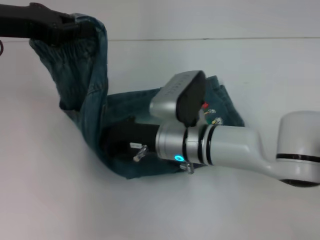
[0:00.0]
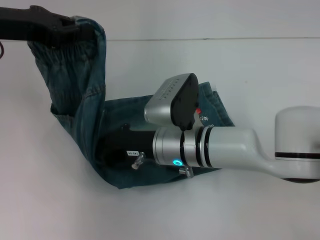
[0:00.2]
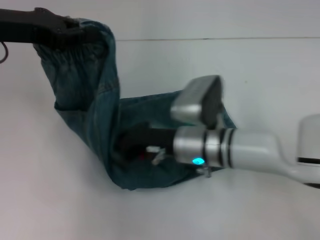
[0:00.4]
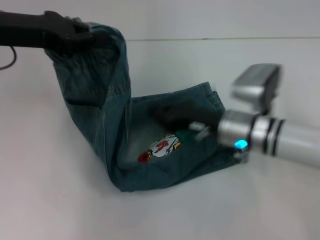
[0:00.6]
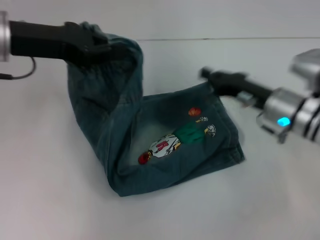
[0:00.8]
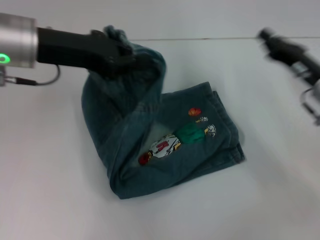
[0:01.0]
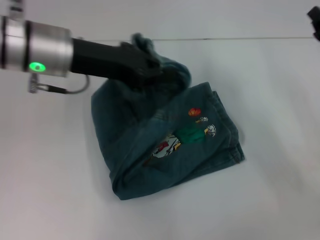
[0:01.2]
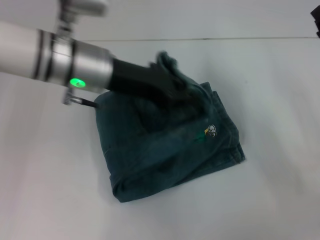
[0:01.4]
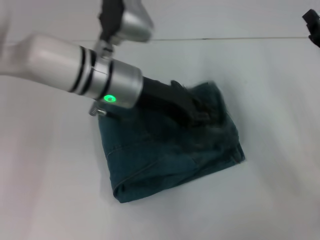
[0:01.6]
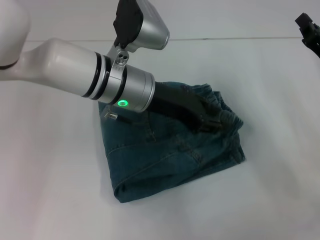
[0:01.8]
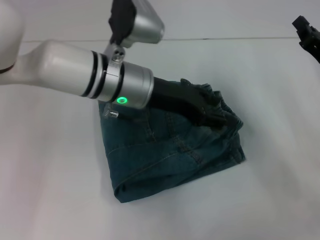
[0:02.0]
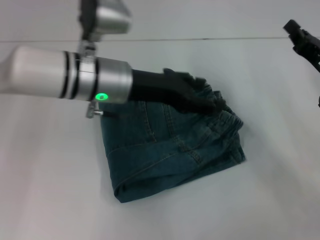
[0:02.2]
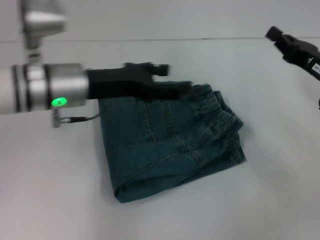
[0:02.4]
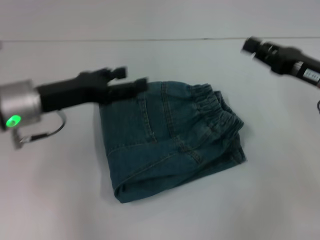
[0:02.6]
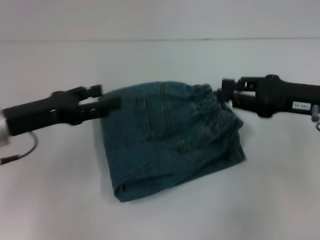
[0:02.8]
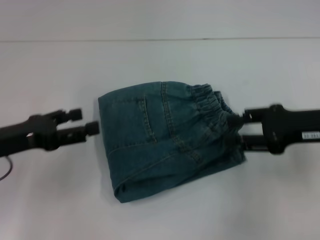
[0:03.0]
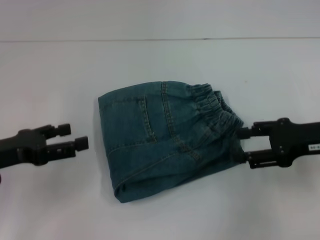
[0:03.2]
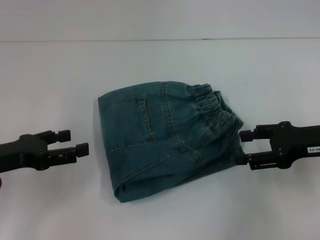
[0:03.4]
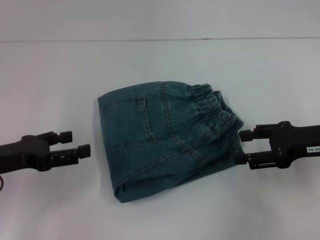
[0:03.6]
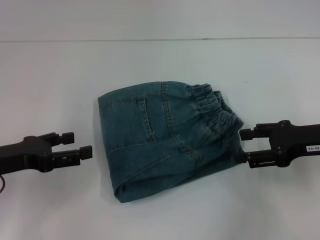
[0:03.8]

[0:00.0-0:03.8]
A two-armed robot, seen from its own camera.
Step, 0:00.2 to 0:01.8: Fold to the right with your left hand.
0:00.0 to 0:01.2: The right gripper goes about 25 cm to the right, while the left gripper moves to the right, approximately 10 cm.
0:01.2 to 0:02.6: The left gripper travels downward by some 10 cm, travels to the right and back again, roughly 10 cm each way, and opens.
0:02.6 to 0:03.8: The right gripper opens; the left gripper shifts some 10 cm to the left and backward.

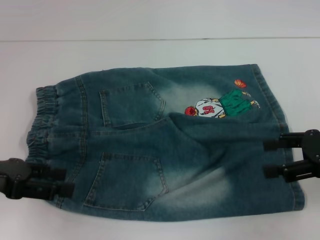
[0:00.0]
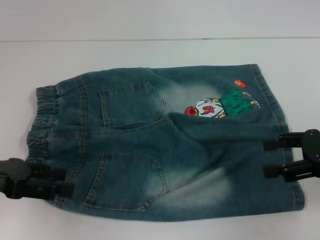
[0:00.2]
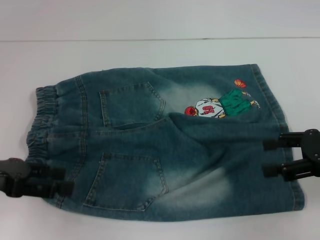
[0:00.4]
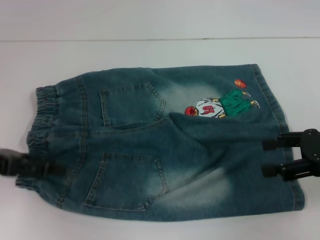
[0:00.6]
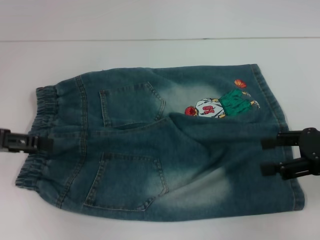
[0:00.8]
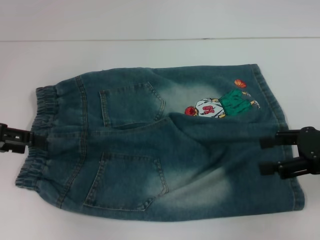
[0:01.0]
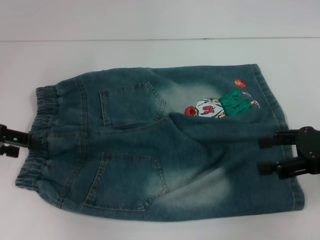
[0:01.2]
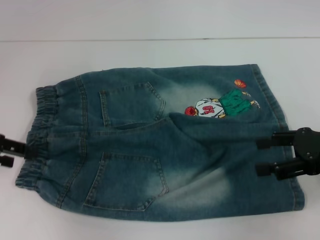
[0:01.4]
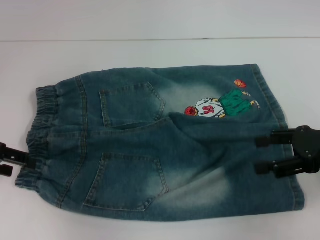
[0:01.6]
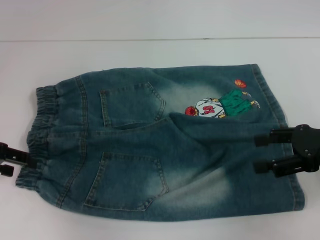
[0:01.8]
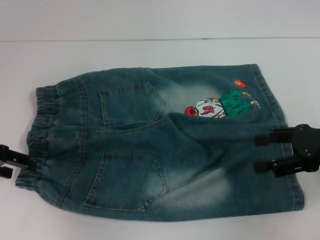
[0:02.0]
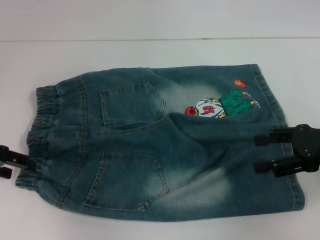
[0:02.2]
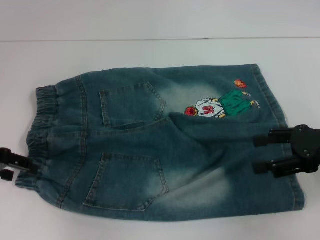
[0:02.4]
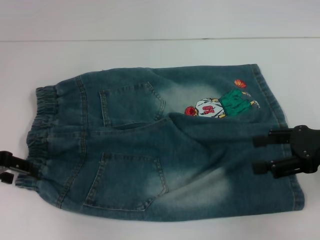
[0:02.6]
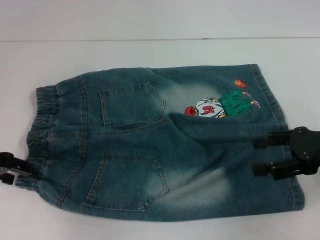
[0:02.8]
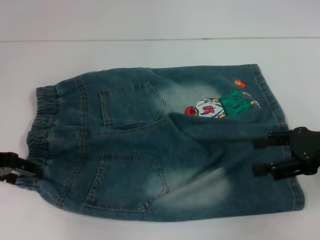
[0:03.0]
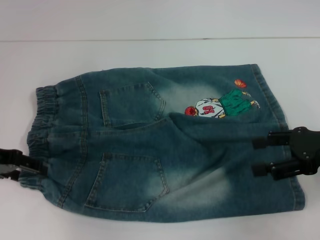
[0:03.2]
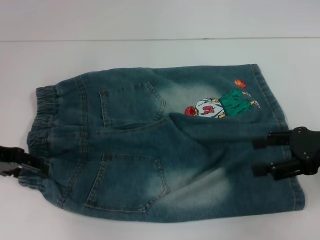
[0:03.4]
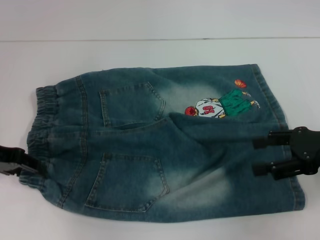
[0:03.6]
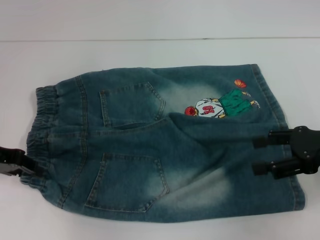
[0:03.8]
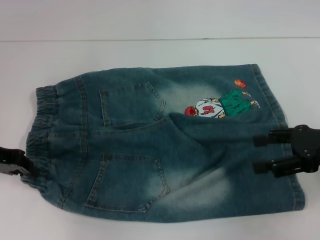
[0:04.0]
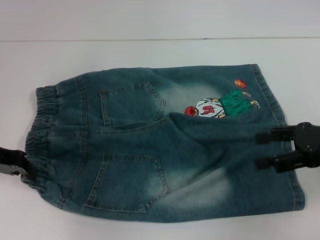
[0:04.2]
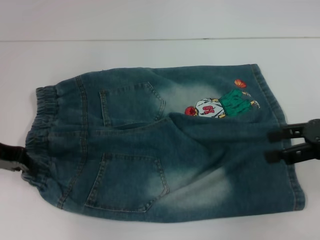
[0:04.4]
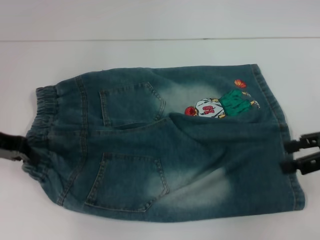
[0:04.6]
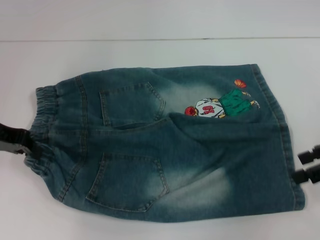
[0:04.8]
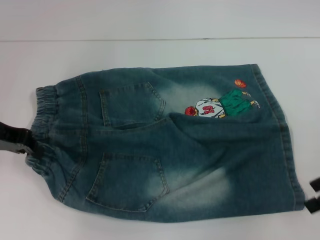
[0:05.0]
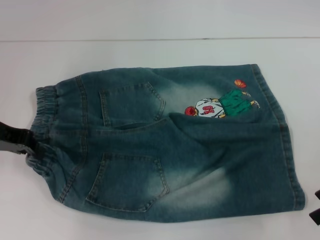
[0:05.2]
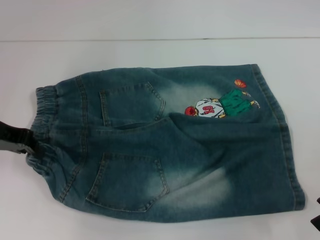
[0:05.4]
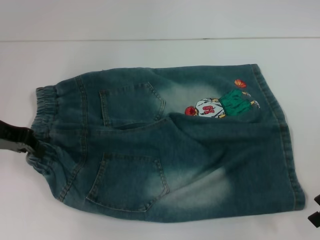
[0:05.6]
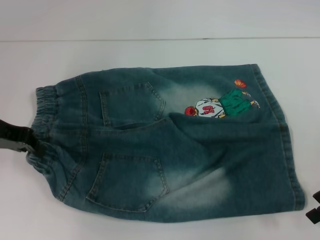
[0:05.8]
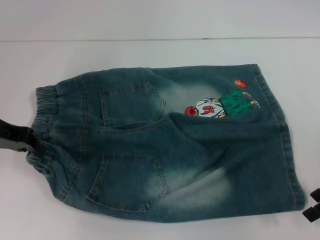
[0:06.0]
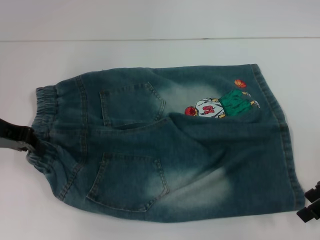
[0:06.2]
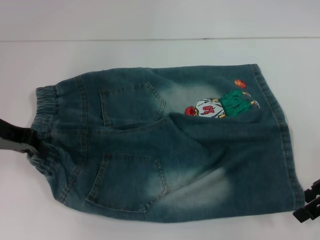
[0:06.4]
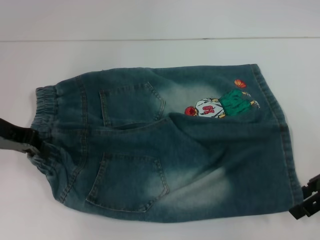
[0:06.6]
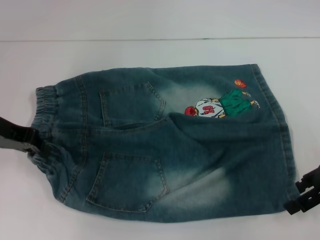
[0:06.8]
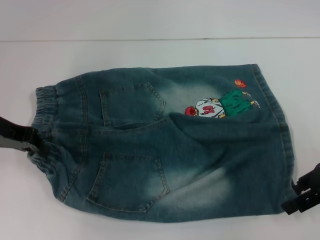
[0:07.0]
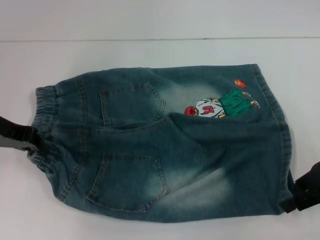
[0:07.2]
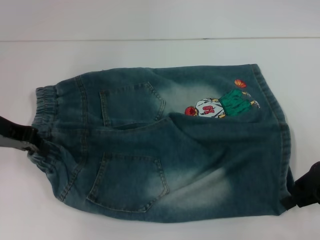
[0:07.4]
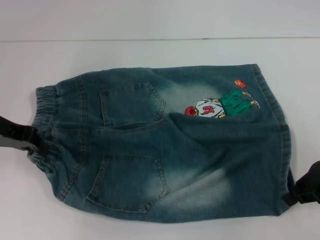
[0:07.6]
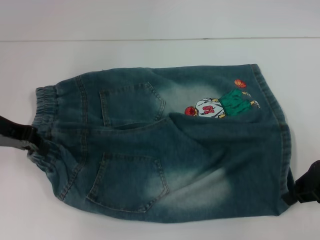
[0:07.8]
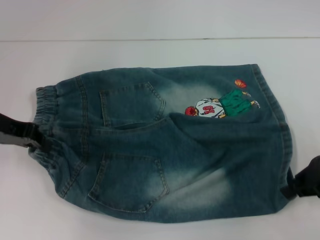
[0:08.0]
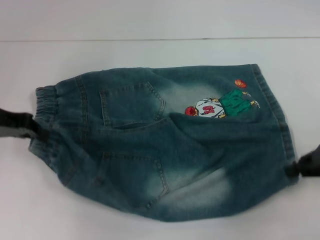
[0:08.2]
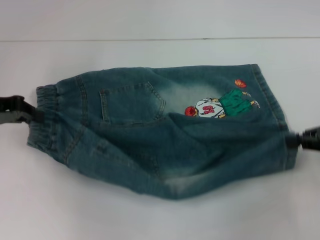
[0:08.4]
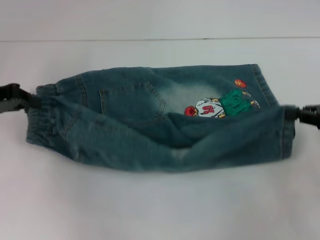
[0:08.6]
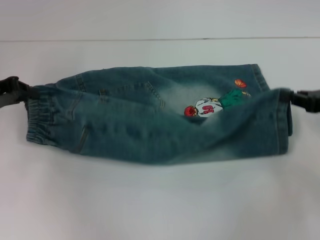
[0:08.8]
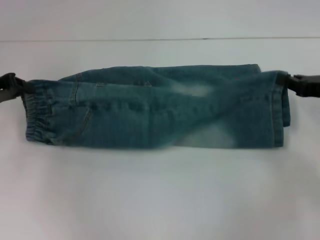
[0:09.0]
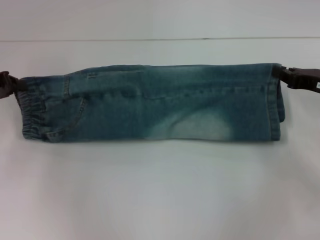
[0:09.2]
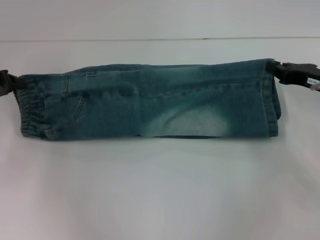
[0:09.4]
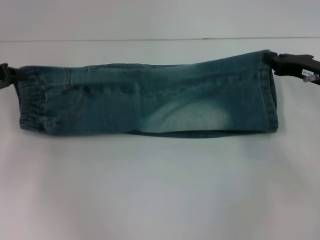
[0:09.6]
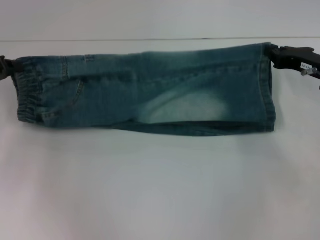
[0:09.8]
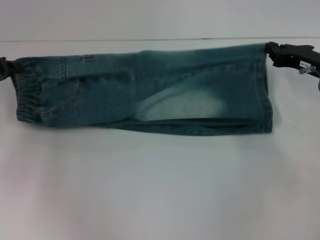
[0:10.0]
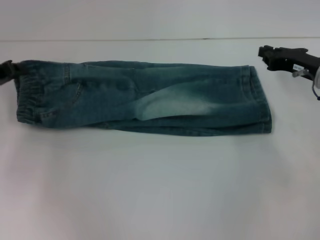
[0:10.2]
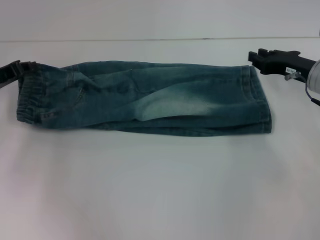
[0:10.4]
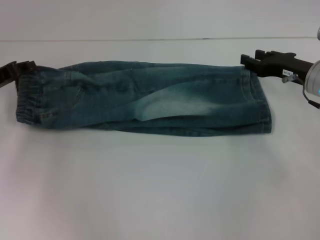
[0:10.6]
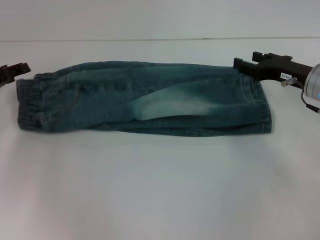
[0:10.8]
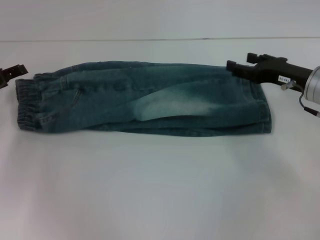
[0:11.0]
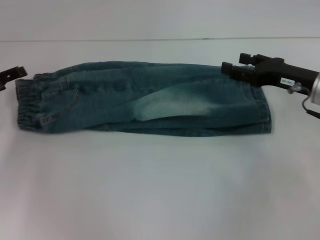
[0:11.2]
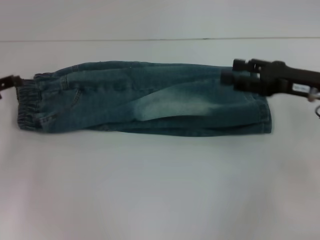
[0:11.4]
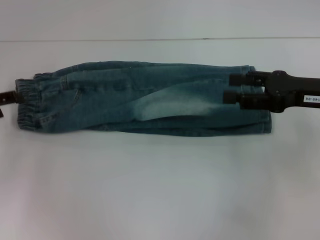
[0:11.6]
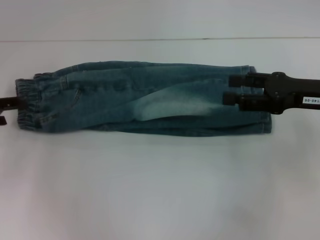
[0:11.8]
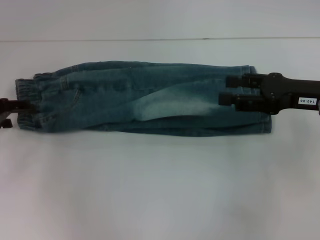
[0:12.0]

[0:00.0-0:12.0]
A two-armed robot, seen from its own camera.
Step, 0:00.0 to 0:04.4: Hold the lower left waistband with your left hand.
Step, 0:04.6 to 0:07.8: Grab the lower right pant leg with your right hand.
Step, 0:08.0 to 0:10.0: Fold upward with your right hand.
Step, 0:10.2 to 0:10.6: Fold upward with your left hand.
0:00.0 to 0:01.6: The left gripper shifts roughly 5 cm forward.
0:01.6 to 0:03.0: The grippers stay close to where they were, moving slightly.
0:03.0 to 0:04.4: The left gripper closes its fingers.
0:06.0 to 0:07.6: The right gripper closes.
0:07.6 to 0:09.0: The left gripper moves some 5 cm, while the right gripper ends up roughly 5 cm from where it was.
0:09.0 to 0:10.4: The right gripper is displaced to the left and forward by some 10 cm.
0:10.4 to 0:12.0: The left gripper opens up; the right gripper is displaced backward and upward by roughly 10 cm, and opens up.

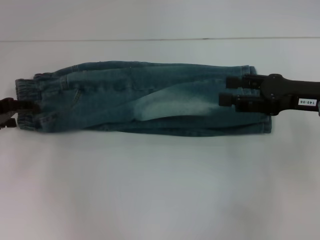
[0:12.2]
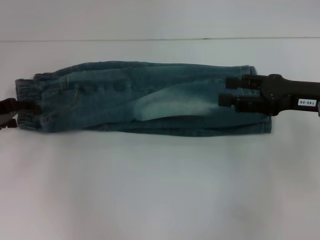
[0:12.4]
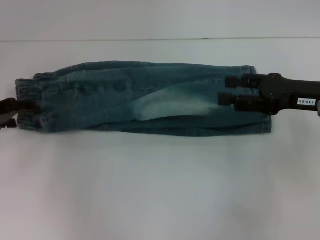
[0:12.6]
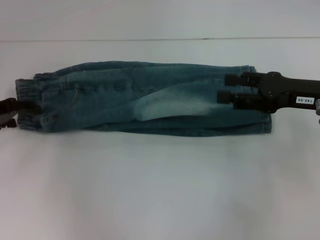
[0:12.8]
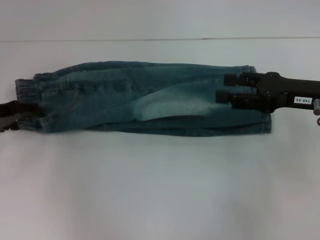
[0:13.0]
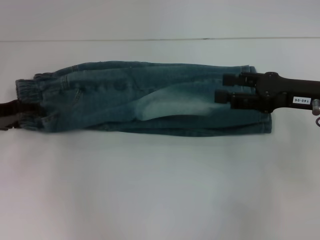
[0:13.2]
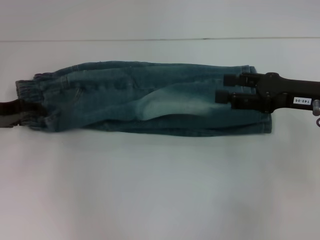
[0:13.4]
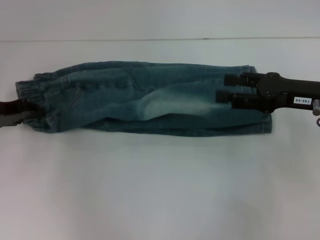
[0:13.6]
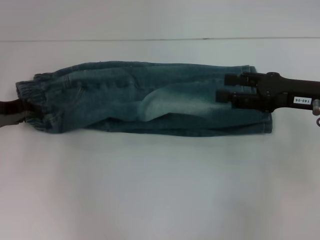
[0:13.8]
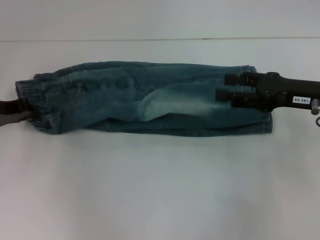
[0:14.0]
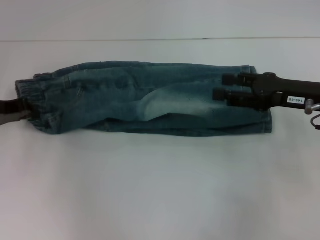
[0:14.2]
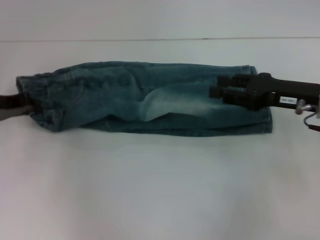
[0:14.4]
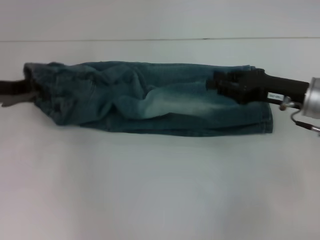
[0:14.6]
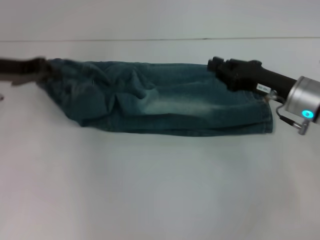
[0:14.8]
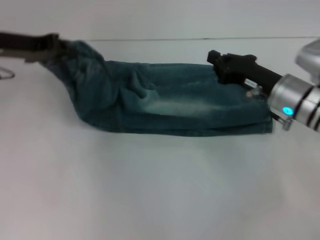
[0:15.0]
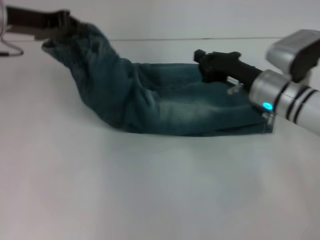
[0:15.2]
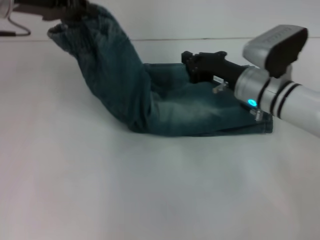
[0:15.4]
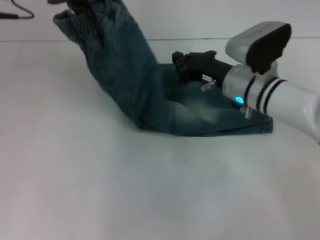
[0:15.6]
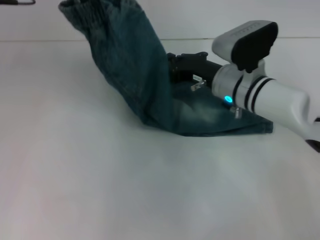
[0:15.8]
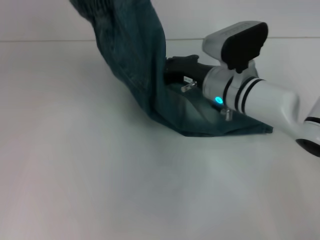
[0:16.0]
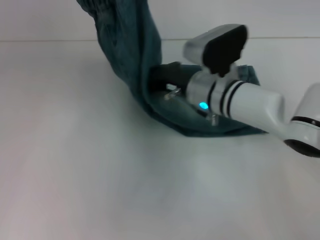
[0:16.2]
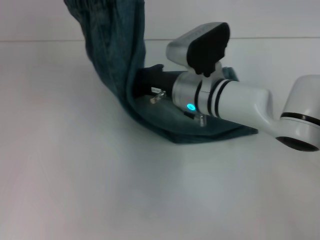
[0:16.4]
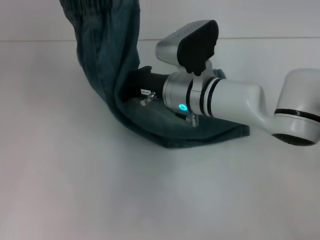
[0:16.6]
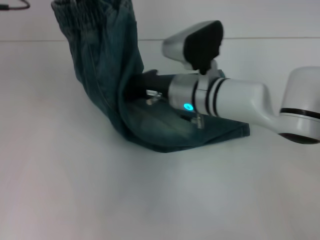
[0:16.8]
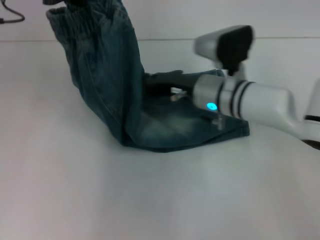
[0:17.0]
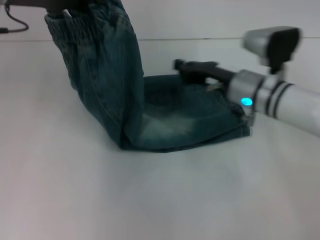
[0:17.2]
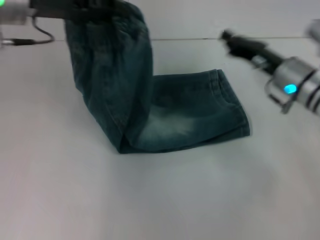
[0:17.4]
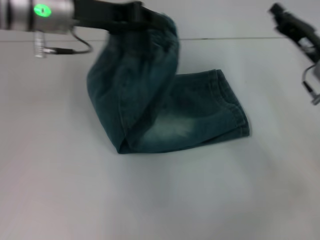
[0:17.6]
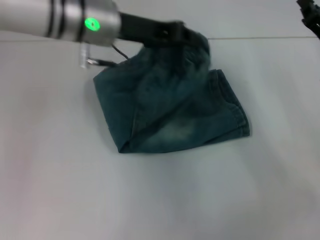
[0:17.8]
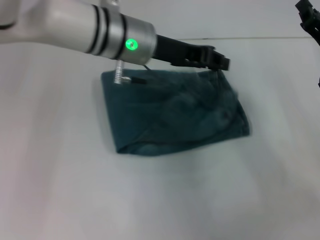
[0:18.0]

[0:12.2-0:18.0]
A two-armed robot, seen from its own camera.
Step, 0:12.2 to 0:14.4: Hold the waistband with your left hand.
Step, 0:14.6 to 0:16.4: Press the middle of the pants with your right hand.
0:12.2 to 0:13.6: The grippers move only a little.
0:13.6 to 0:15.0: The left gripper shifts some 10 cm upward and to the right, and closes its fingers. The right gripper is displaced downward and to the left by some 10 cm, and closes.
0:15.0 to 0:16.6: The left gripper travels upward by roughly 10 cm. The right gripper goes roughly 15 cm to the left.
0:16.6 to 0:18.0: The left gripper heads to the right and downward, covering approximately 20 cm. The right gripper moves to the right, about 25 cm.
